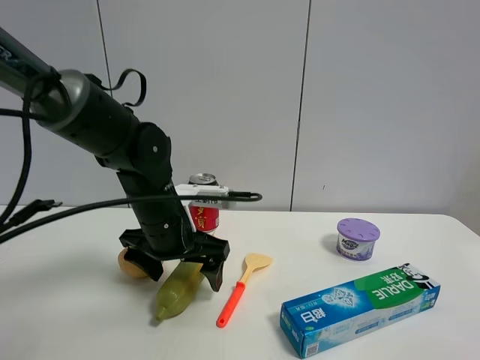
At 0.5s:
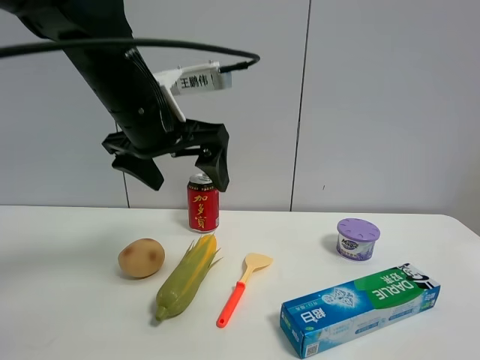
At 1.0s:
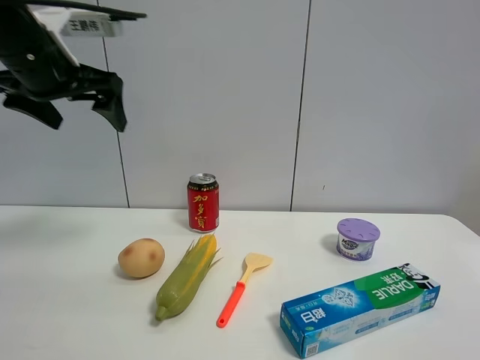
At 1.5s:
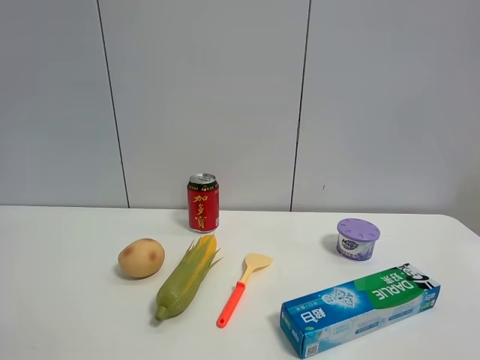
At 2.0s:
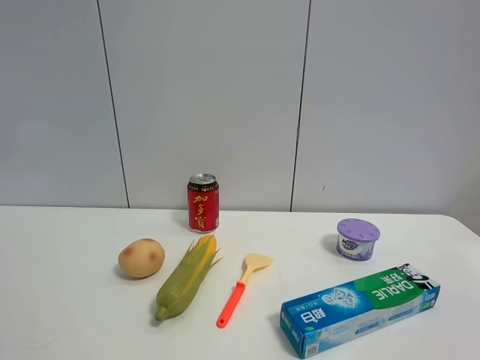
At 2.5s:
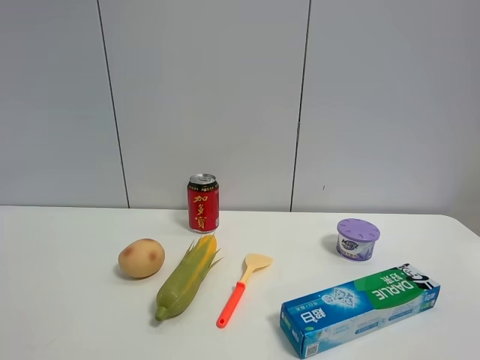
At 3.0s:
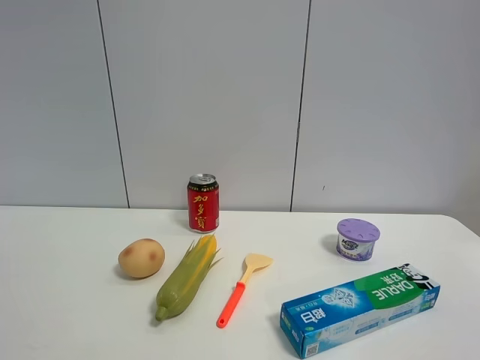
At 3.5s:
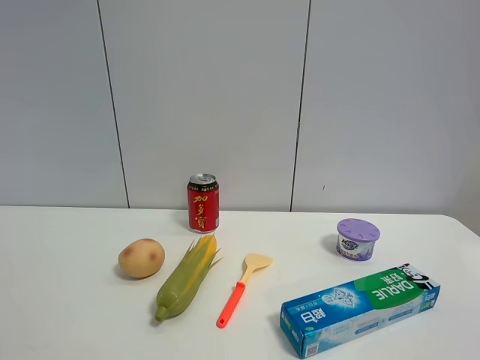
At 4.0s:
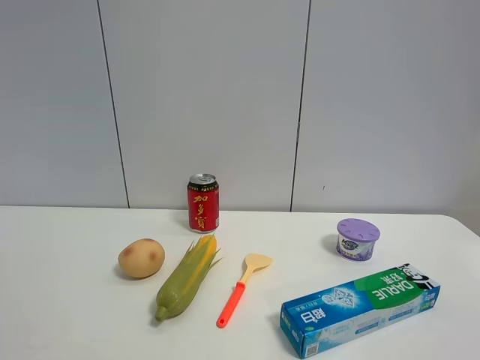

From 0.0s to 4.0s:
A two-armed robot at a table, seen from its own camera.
Task of the whole recording: the gripper move the object.
From 0.0s to 2.0s: The left gripper moves upward, backward and to the left, roughly 40 cm.
